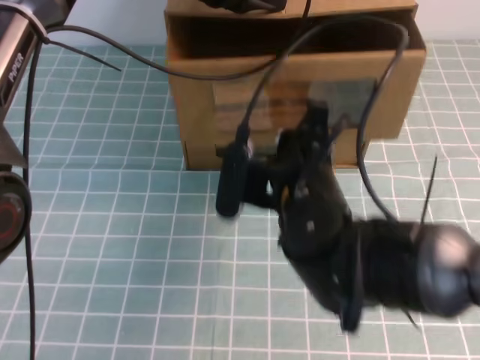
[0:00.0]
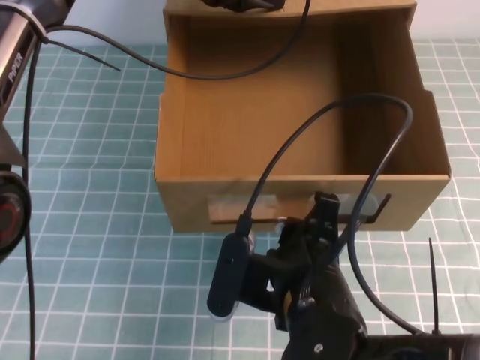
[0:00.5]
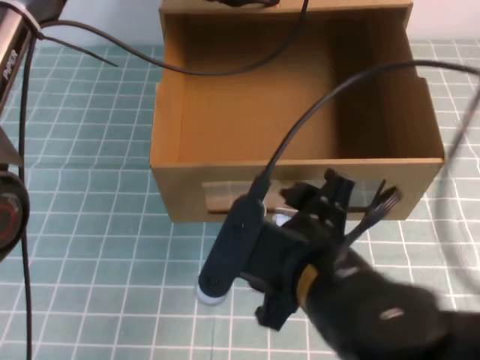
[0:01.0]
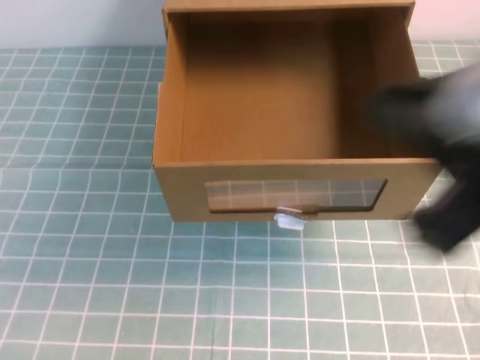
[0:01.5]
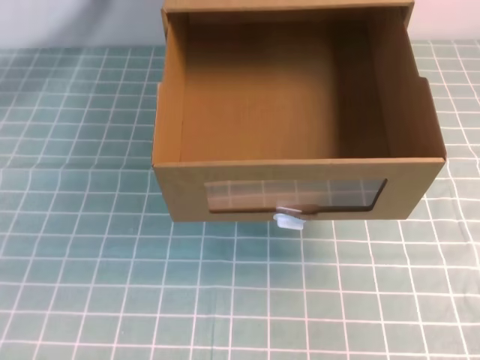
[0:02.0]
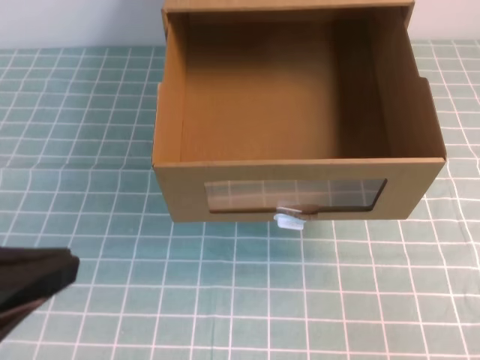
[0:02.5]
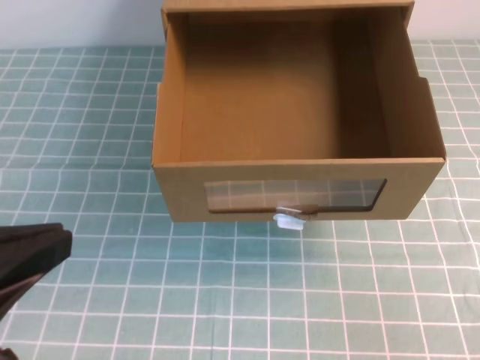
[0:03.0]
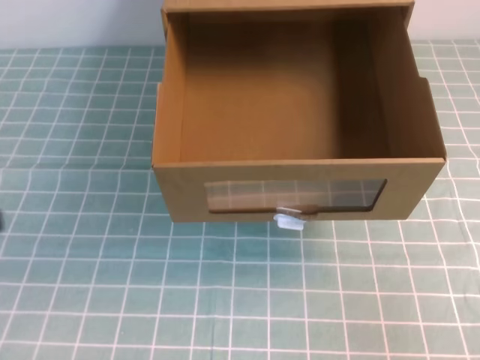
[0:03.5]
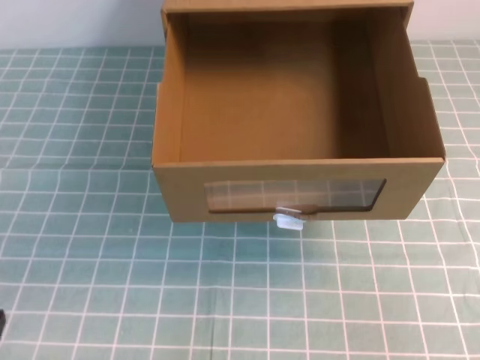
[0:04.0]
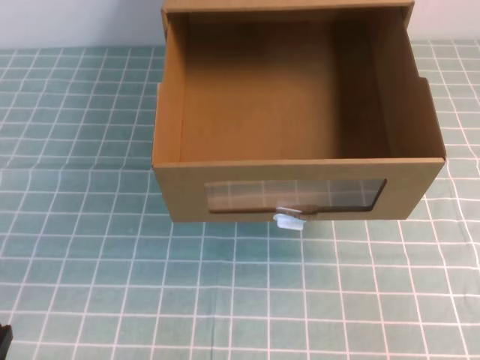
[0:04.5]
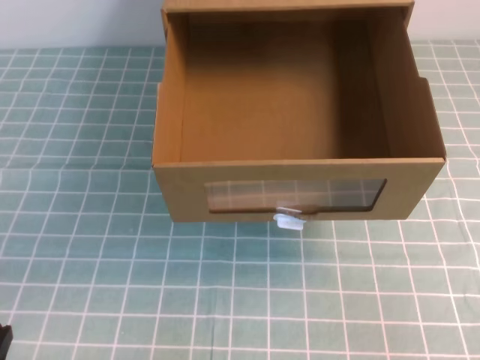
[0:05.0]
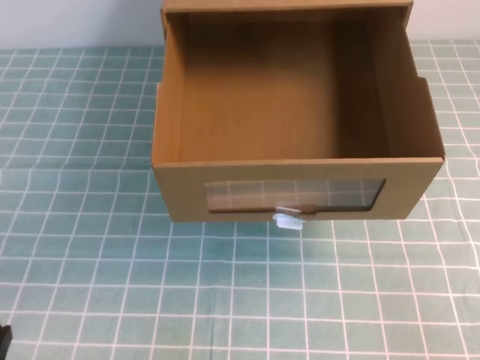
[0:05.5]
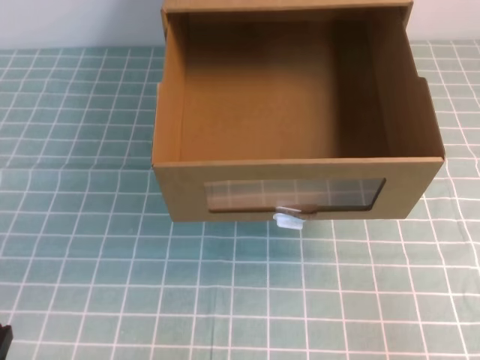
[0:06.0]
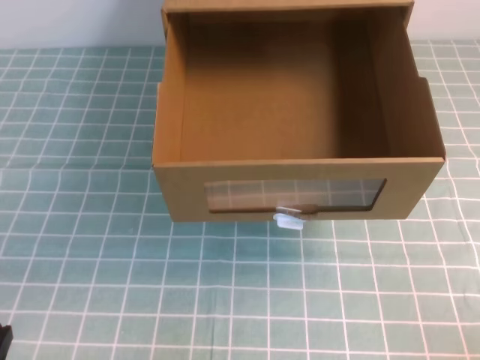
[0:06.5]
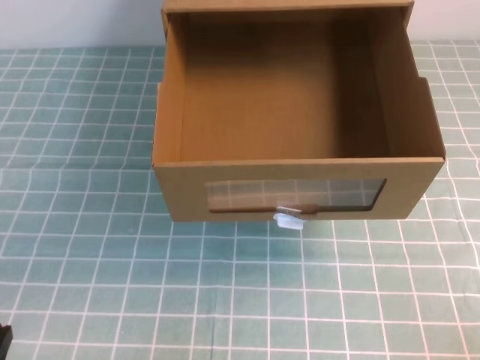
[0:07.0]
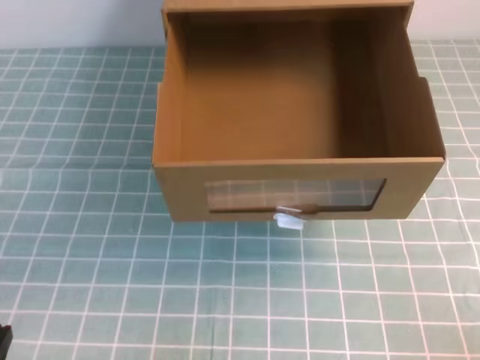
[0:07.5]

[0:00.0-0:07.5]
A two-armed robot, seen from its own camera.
Task of the whole recording: open the shoebox on the cyan tablecloth.
Step, 0:00.0 to 0:07.5: Open the shoe box.
0:00.0 to 0:02.0: The left gripper shifts approximately 35 cm backward, upward and to the left; the right gripper heads to the right, backward and upward, covering roughly 40 cm, and opens and closes again.
0:02.0 to 0:04.0: The left gripper shifts approximately 35 cm downward.

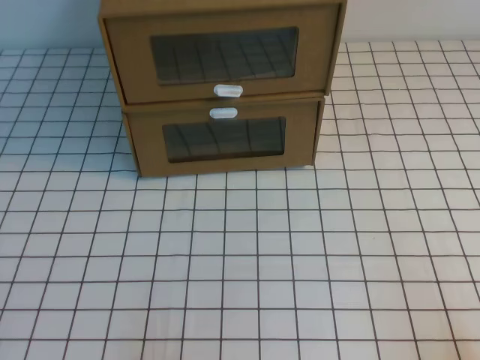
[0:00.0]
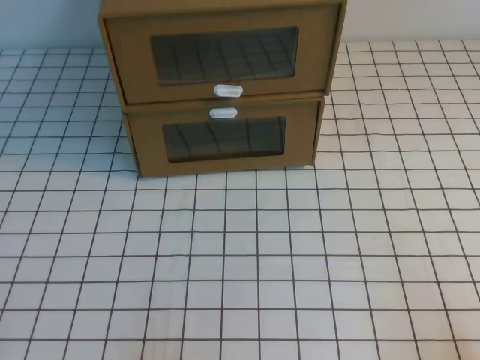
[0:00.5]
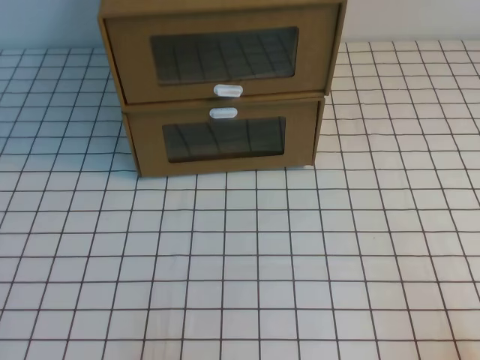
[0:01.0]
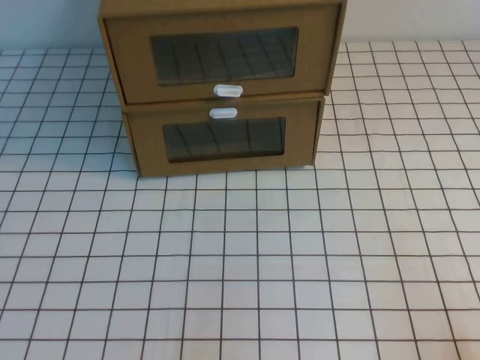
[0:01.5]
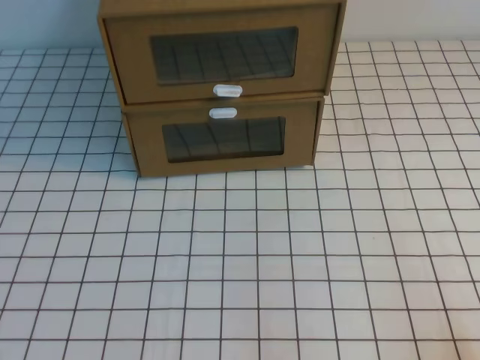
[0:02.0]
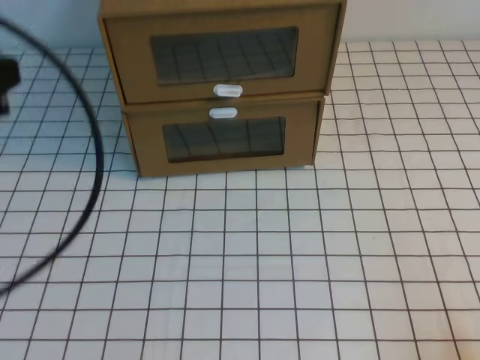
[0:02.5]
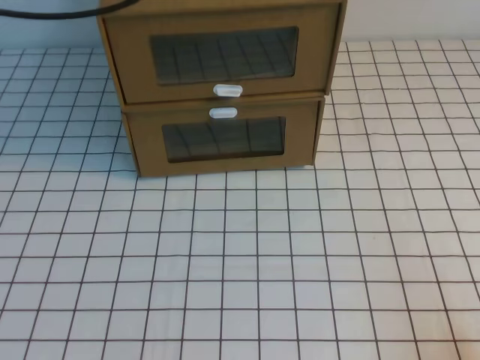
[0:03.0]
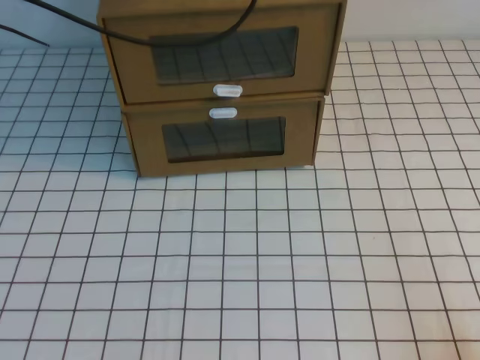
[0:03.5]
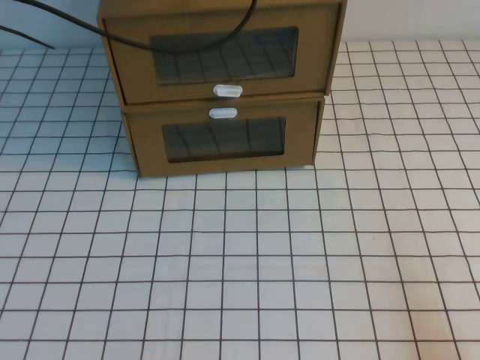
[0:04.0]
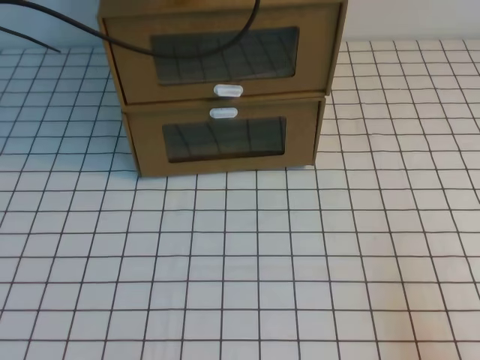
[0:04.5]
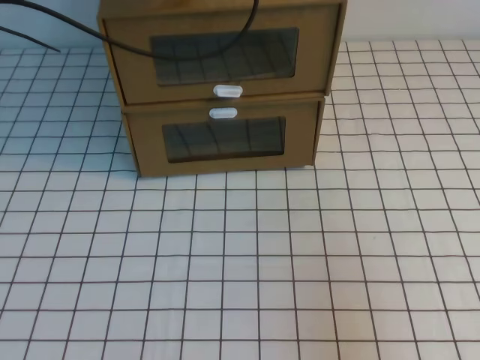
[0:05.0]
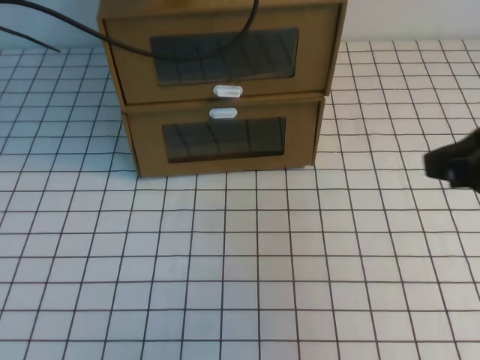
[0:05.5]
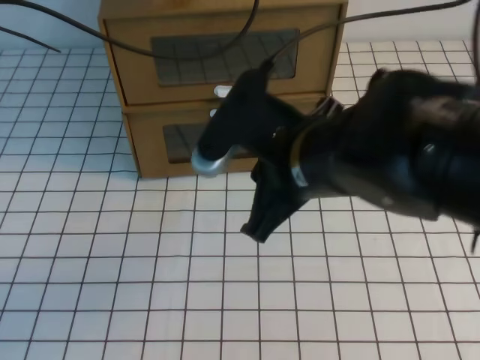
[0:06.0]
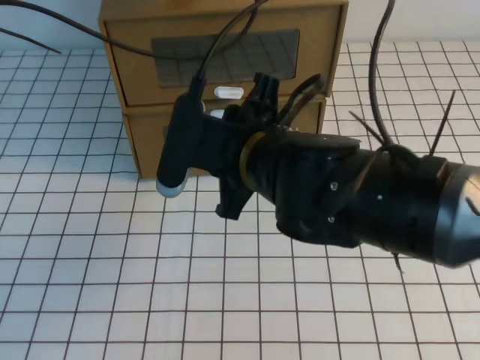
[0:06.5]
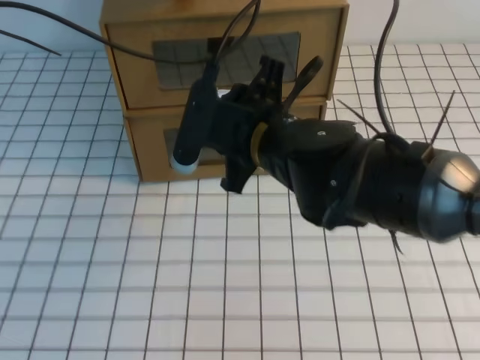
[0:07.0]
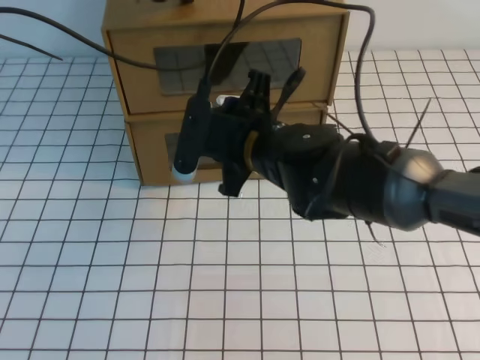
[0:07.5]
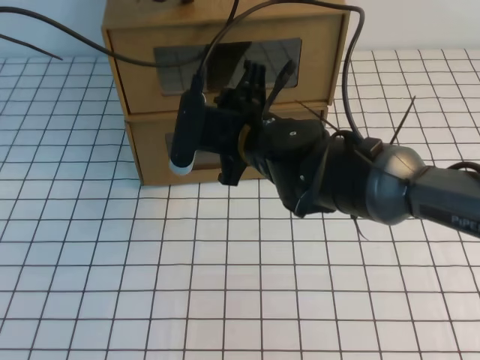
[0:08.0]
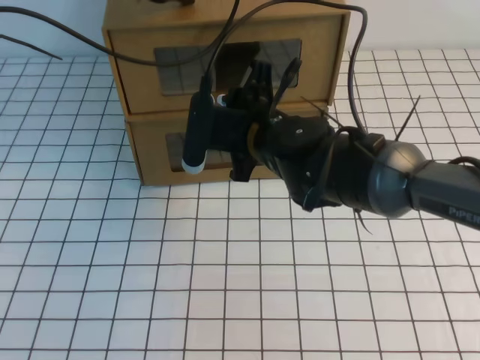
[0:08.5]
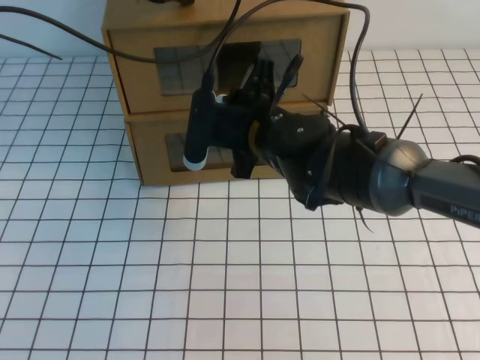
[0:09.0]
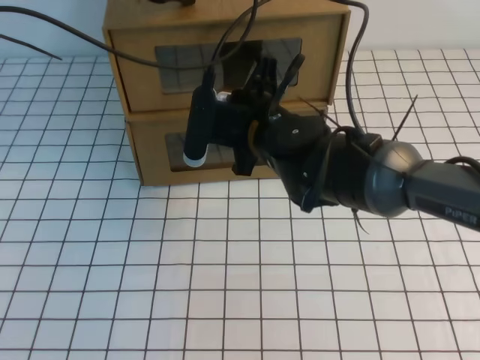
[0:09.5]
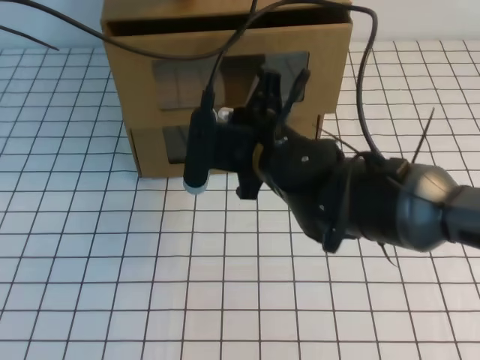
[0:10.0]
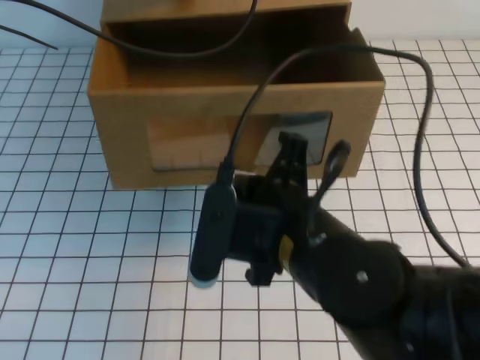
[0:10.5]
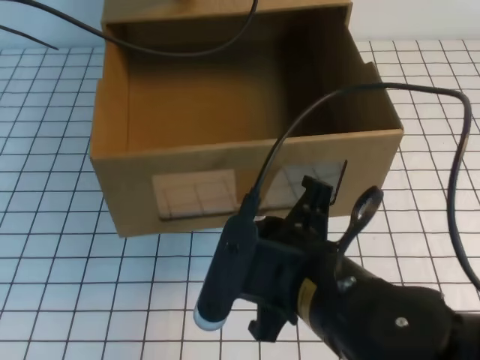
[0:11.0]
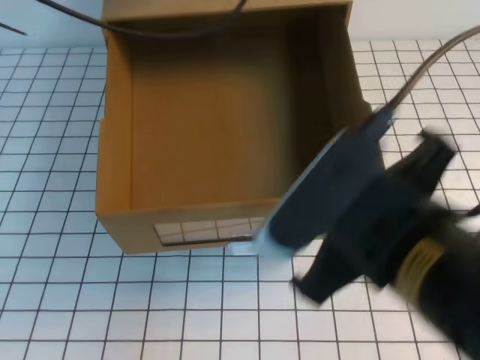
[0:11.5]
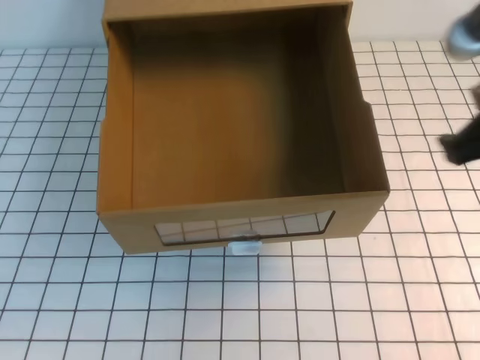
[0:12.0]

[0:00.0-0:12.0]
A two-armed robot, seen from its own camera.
Task of the whole recording: open the shoebox on the white tablecloth.
0:02.0 to 0:04.0: The left gripper heads forward and upward, covering some 40 cm.
0:04.0 to 0:06.0: The right gripper shifts roughly 35 cm to the left, forward and upward.
0:06.0 to 0:08.0: The right gripper is displaced forward, to the left and downward by approximately 15 cm, and opens up.
0:08.0 to 0:10.0: The right gripper closes up.
0:10.0 to 0:12.0: The right gripper moves to the right, upward and backward, roughly 25 cm; the left gripper goes about 20 cm upward and backward.

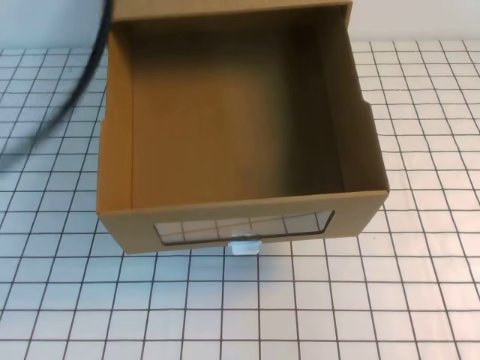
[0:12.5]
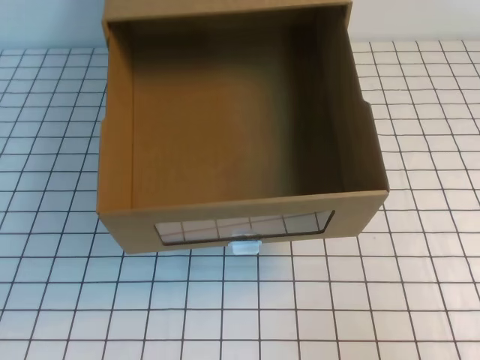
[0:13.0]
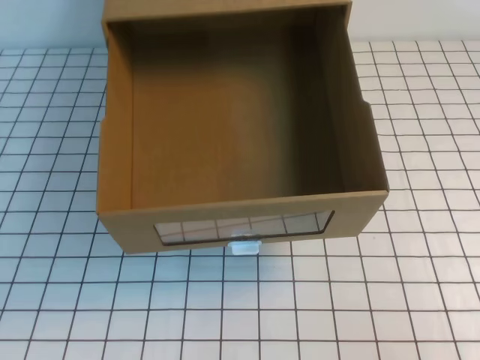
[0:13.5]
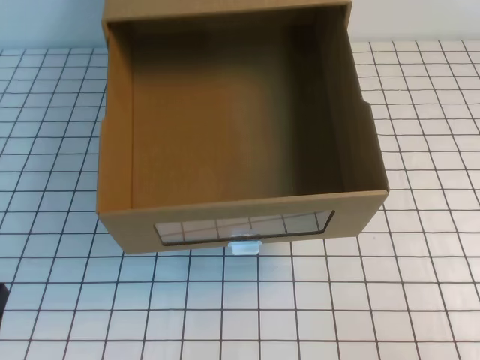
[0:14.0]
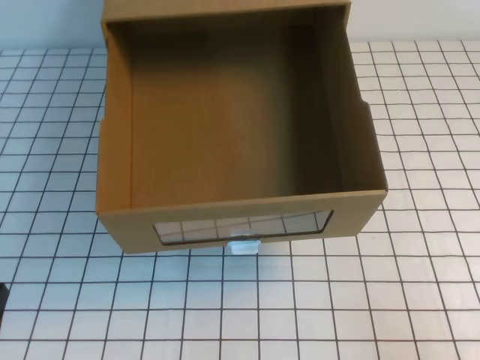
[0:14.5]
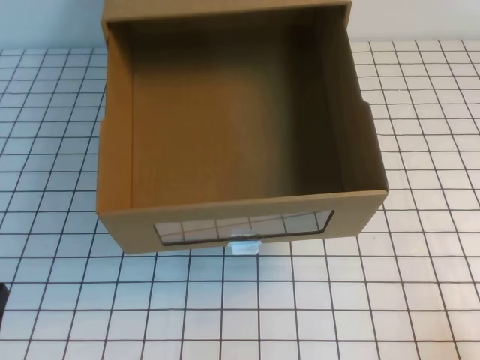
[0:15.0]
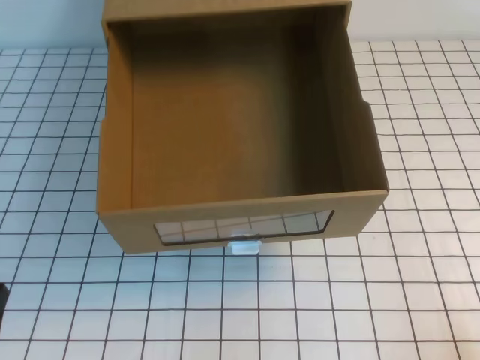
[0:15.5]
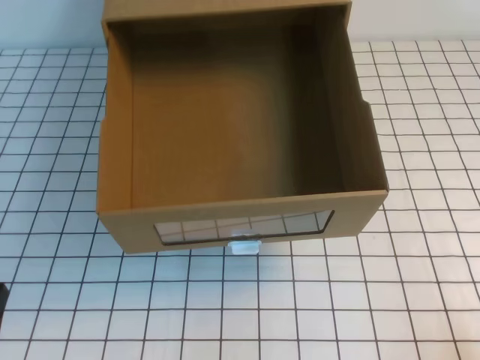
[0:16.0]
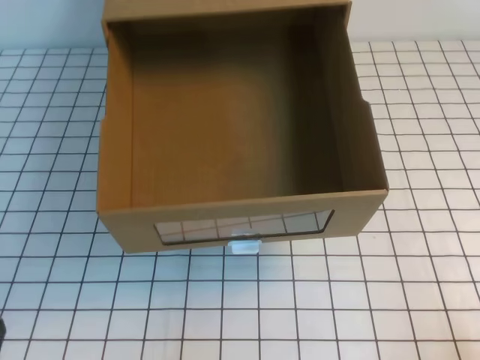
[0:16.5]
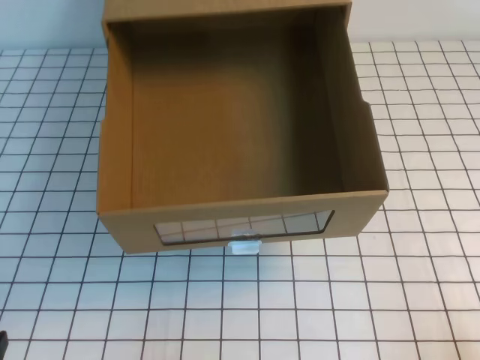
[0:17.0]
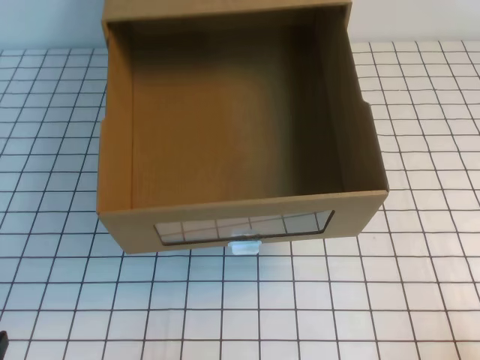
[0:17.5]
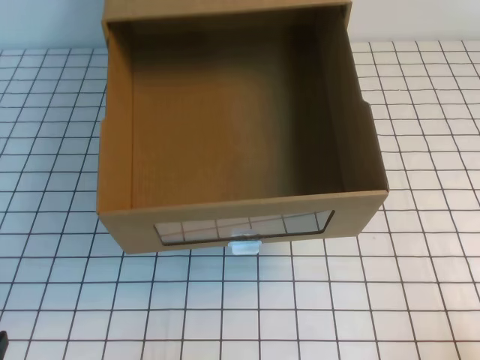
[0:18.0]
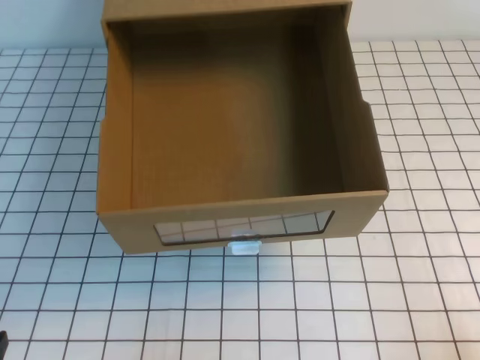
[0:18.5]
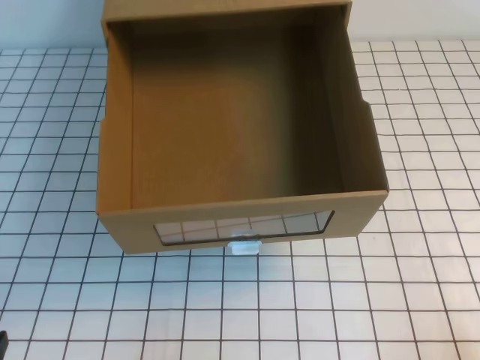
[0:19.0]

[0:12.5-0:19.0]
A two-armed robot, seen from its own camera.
Task of the whole recording: open the shoebox on the white tablecloth.
Step, 0:12.5 to 0:19.0: Open the shoe box.
0:12.5 to 0:14.5: The right gripper shifts approximately 15 cm downward. The left gripper shifts some 35 cm downward.
0:14.5 to 0:17.0: The right gripper is displaced downward by approximately 5 cm.
0:17.0 to 0:19.0: Both grippers stay about where they are.
